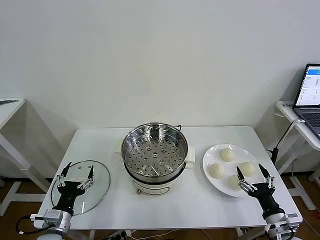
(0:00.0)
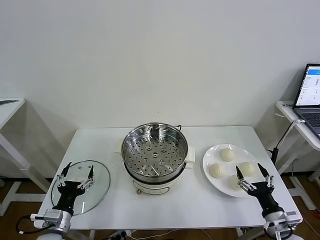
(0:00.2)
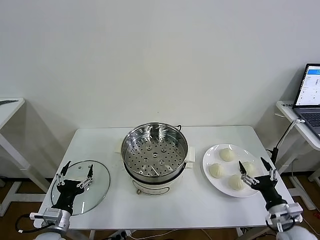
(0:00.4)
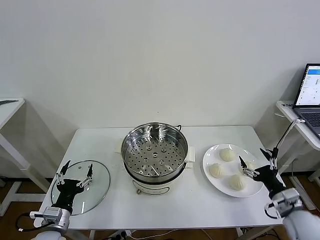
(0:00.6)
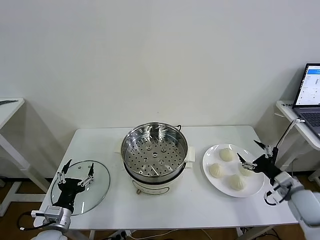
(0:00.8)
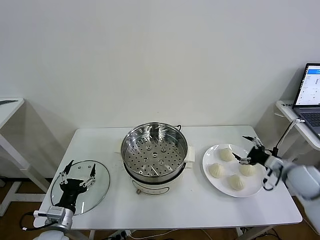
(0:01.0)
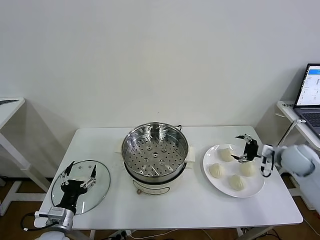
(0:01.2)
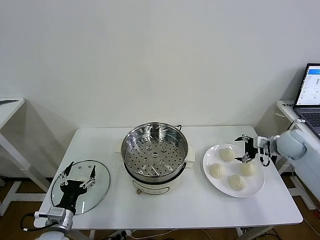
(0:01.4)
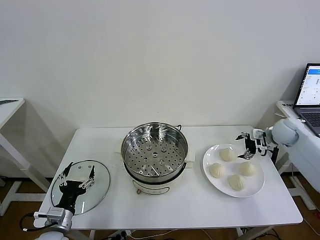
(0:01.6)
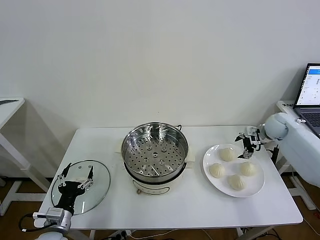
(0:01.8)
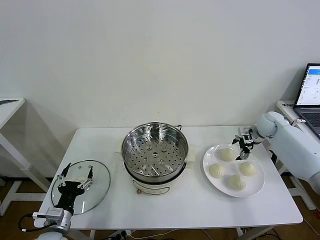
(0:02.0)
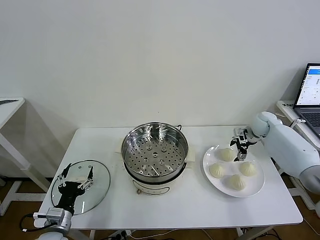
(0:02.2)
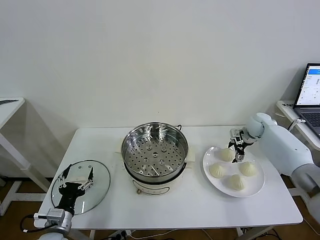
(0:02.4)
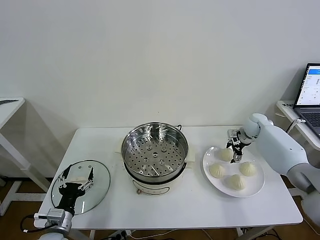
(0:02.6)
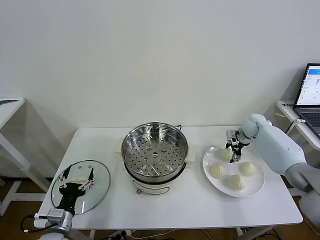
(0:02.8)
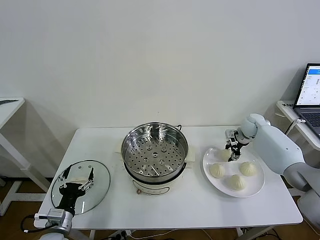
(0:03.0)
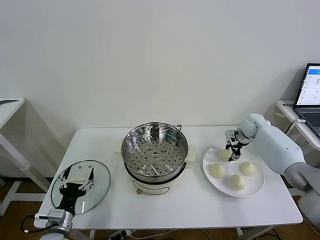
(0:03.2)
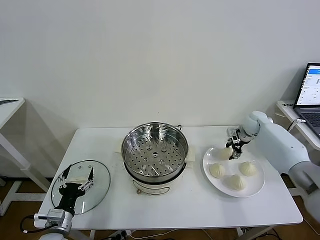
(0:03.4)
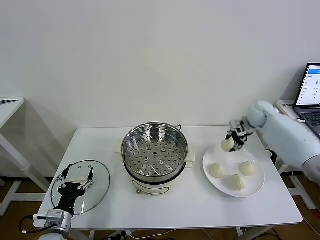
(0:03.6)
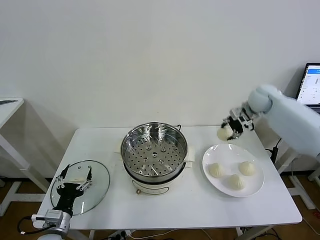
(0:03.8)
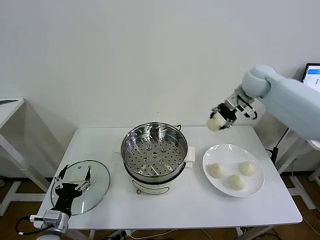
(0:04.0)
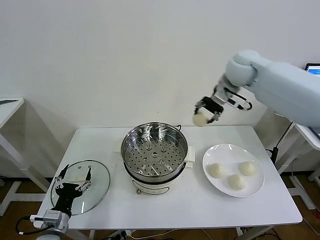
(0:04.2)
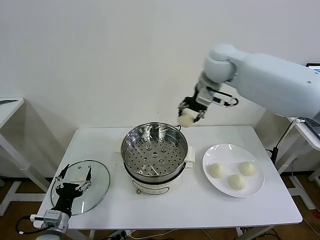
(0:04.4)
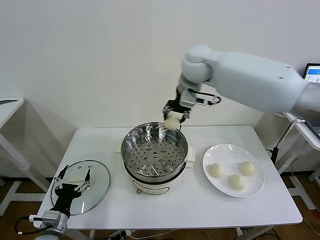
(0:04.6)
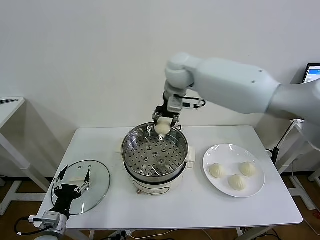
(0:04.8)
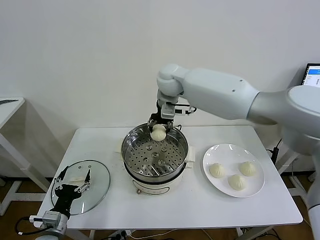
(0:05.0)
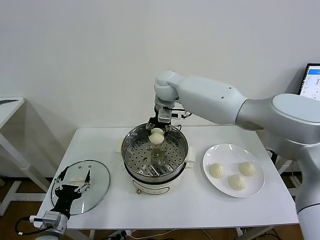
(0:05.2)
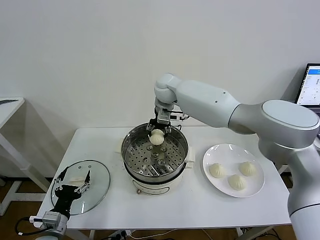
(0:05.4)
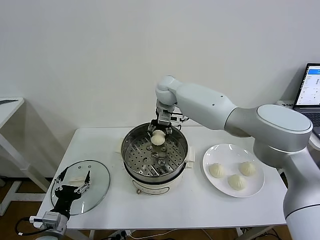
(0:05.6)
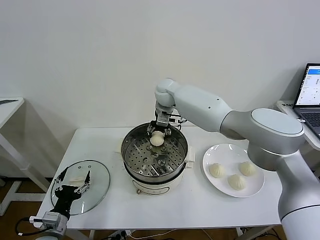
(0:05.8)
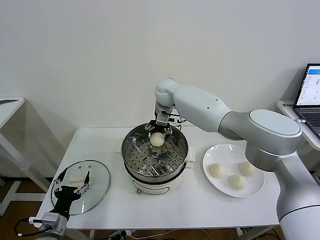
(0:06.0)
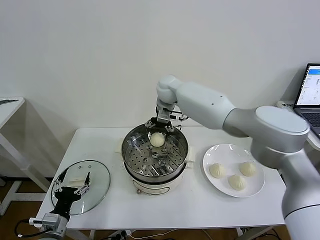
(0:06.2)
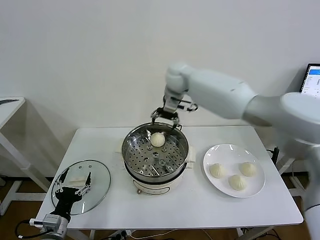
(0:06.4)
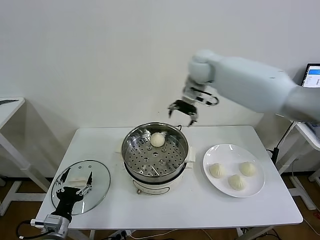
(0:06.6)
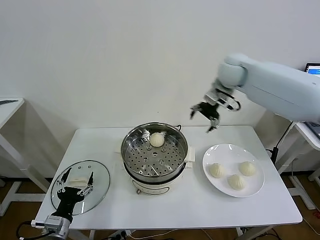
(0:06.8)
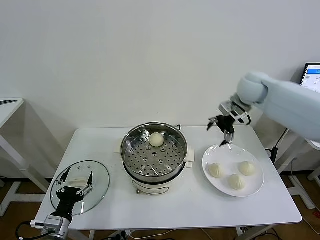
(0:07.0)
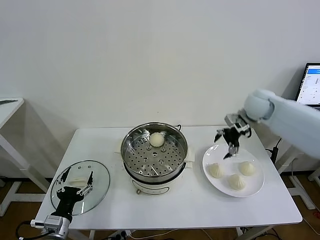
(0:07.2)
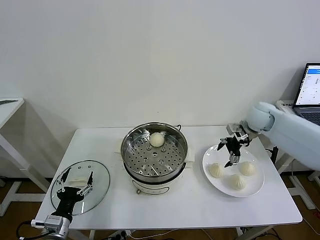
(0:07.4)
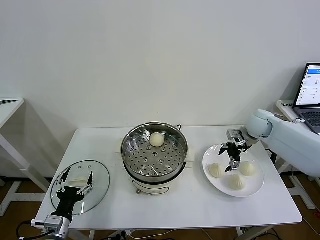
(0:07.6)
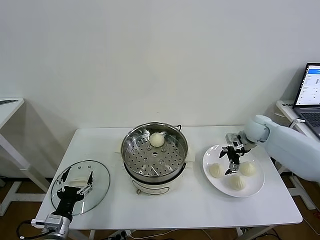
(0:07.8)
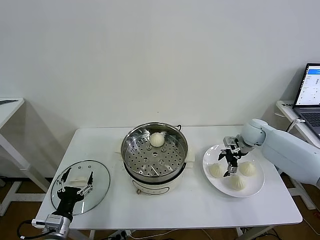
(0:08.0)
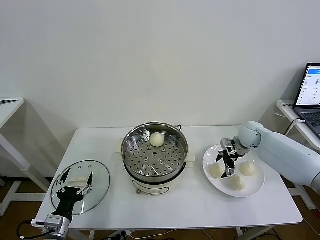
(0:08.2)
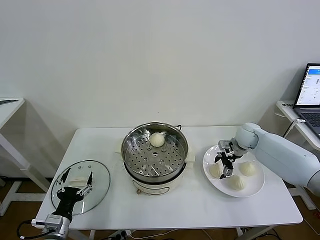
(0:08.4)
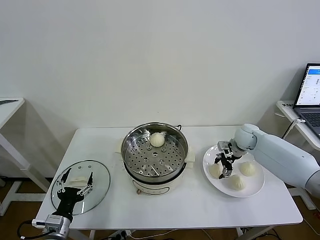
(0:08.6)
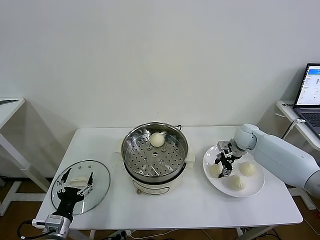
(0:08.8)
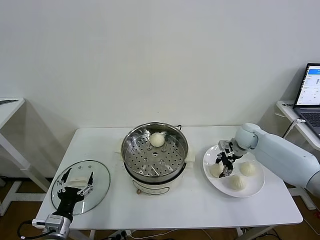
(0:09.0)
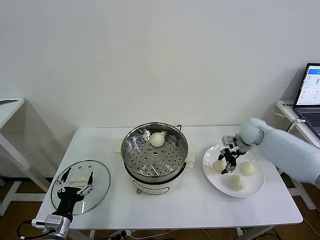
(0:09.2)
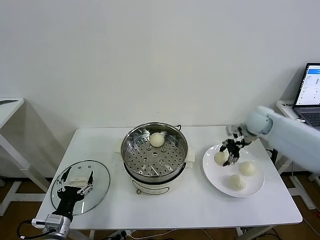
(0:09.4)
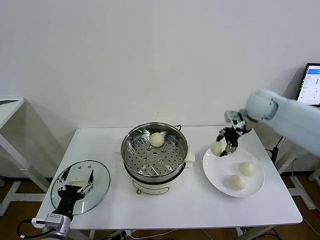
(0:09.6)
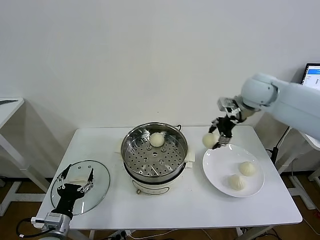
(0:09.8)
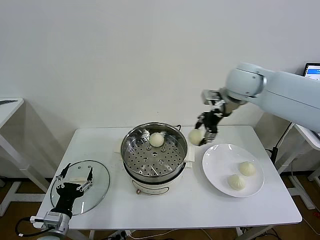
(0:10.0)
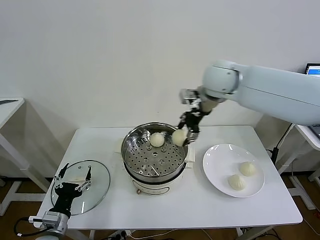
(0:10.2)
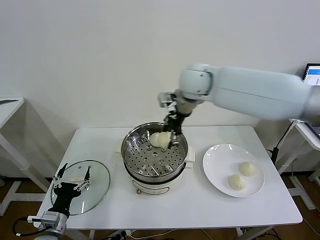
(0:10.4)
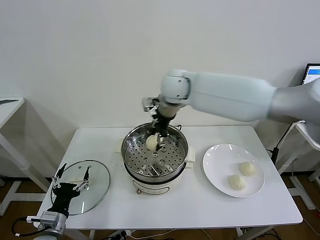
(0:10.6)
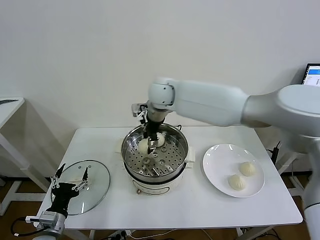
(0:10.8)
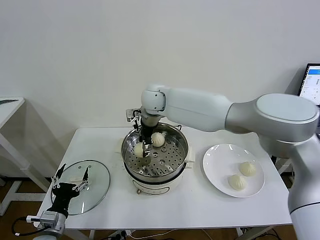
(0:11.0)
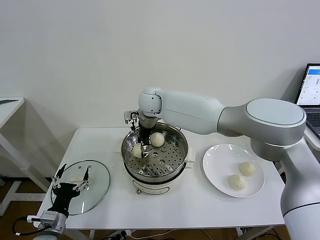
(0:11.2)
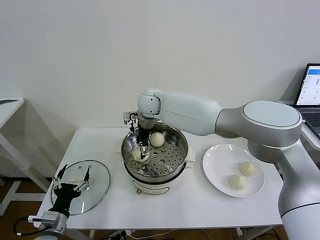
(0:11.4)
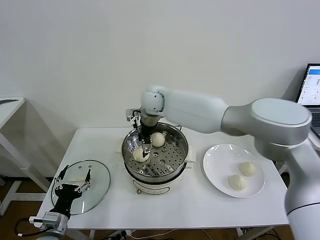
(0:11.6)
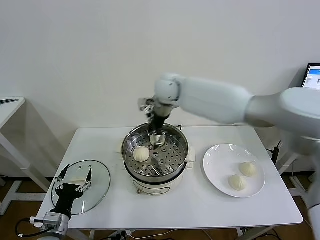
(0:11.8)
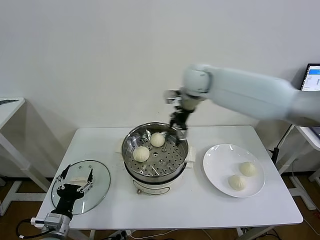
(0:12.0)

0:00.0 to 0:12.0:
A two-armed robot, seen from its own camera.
Task of the whole recording: take steamed baozi put them in steamer then cover it.
Step, 0:00.0 to 0:02.8: Grasp the baozi in the plate with right gripper.
Step, 0:03.2 to 0:06.0: Place the baozi on the steamer with right gripper.
Step, 0:06.2 to 0:08.6: Grasp the baozi in the plate with right gripper.
Step, 0:08.8 to 0:11.4: Place the baozi on the steamer with right gripper.
0:01.6 to 0:03.0: The right gripper is displaced forward, to the left and downward by approximately 10 cm, and closes its fingers.
0:03.0 to 0:04.4: The right gripper travels upward and to the left by approximately 40 cm.
0:04.4 to 0:06.0: The right gripper heads downward, to the left and forward, covering roughly 20 cm, and opens its fingers.
0:06.0 to 0:07.6: The right gripper heads to the right, covering some 35 cm.
0:07.6 to 0:09.0: The right gripper closes up.
0:09.0 to 0:10.4: The right gripper travels to the left and upward by some 35 cm.
0:10.4 to 0:12.0: The right gripper is displaced to the right by approximately 10 cm, and opens.

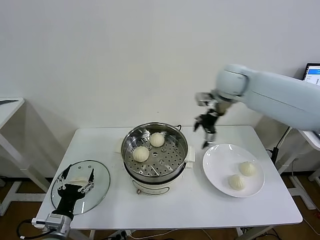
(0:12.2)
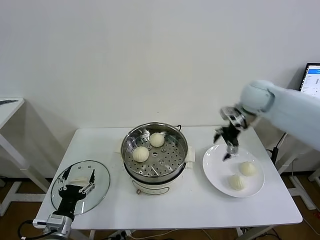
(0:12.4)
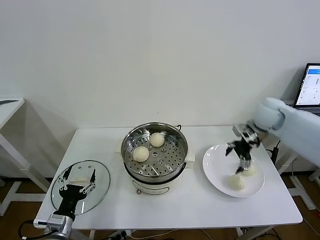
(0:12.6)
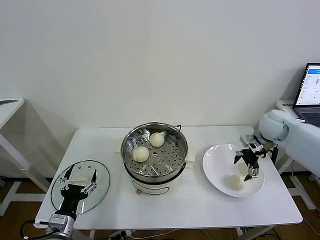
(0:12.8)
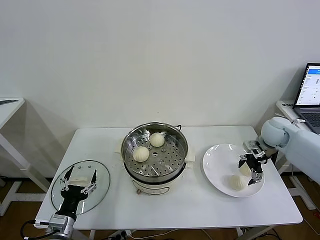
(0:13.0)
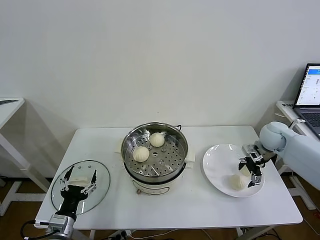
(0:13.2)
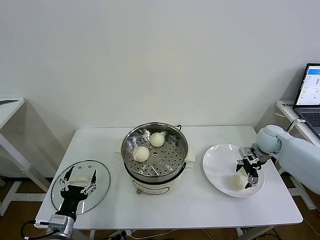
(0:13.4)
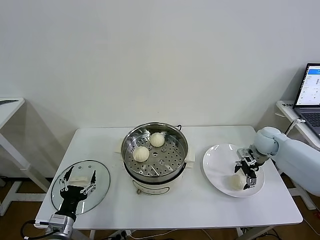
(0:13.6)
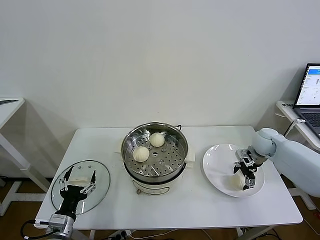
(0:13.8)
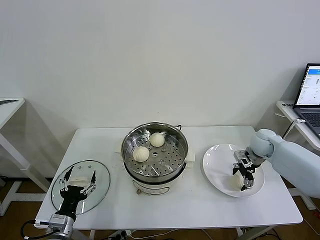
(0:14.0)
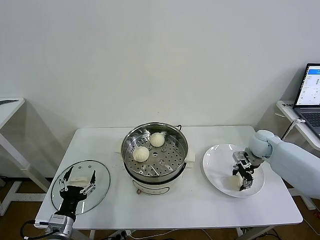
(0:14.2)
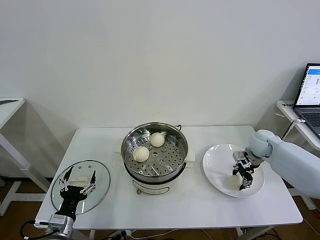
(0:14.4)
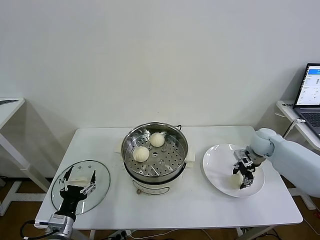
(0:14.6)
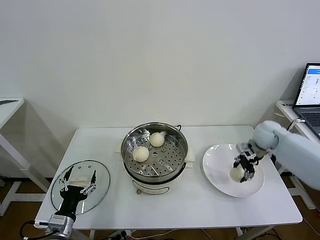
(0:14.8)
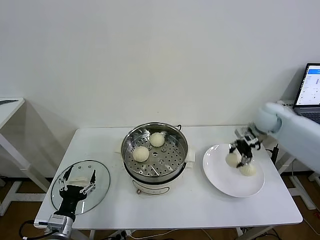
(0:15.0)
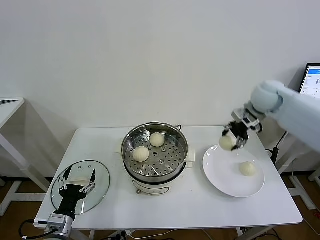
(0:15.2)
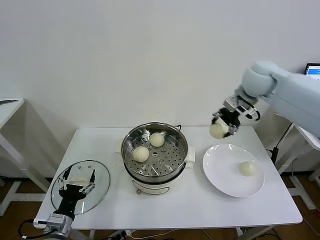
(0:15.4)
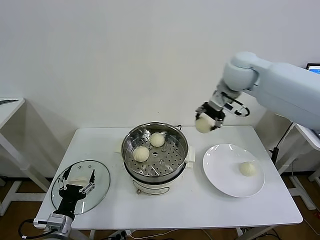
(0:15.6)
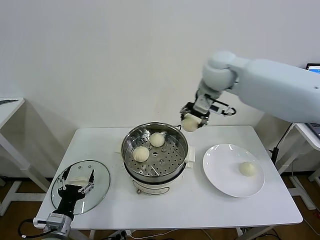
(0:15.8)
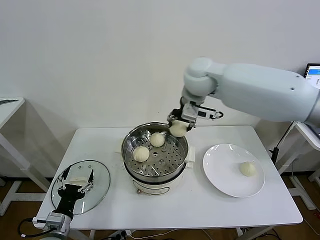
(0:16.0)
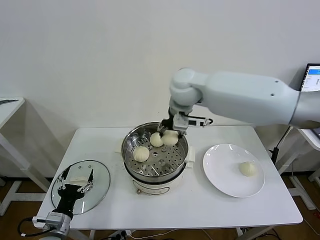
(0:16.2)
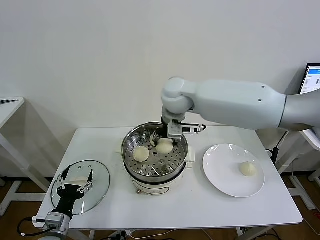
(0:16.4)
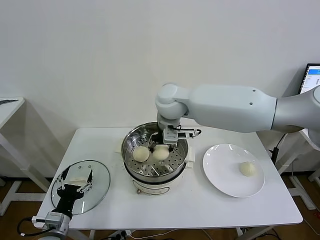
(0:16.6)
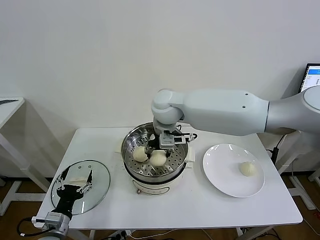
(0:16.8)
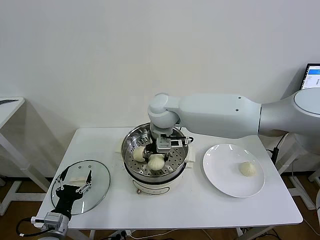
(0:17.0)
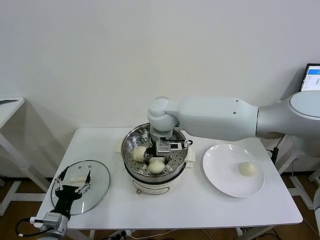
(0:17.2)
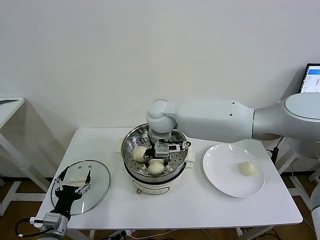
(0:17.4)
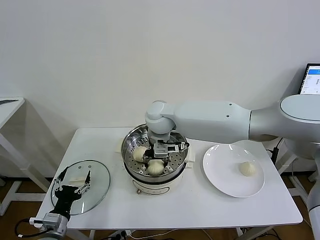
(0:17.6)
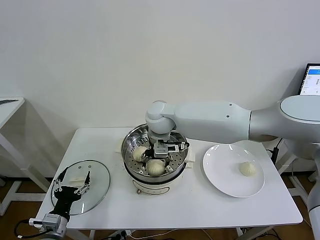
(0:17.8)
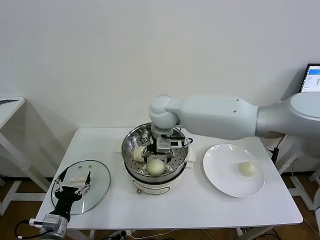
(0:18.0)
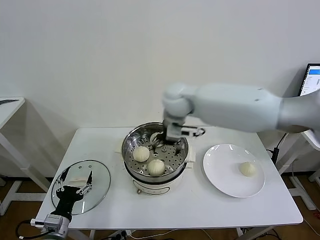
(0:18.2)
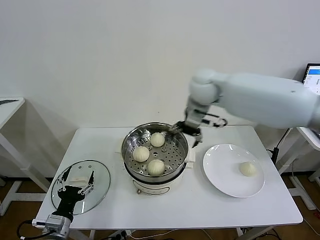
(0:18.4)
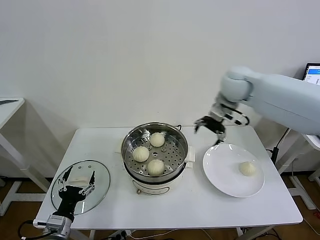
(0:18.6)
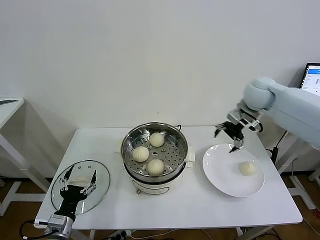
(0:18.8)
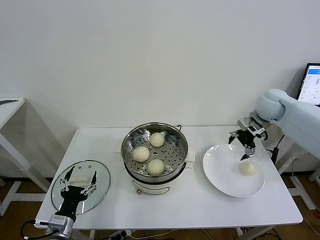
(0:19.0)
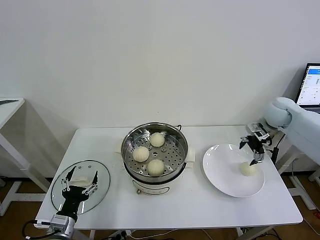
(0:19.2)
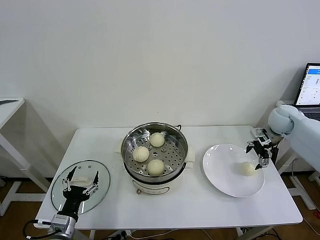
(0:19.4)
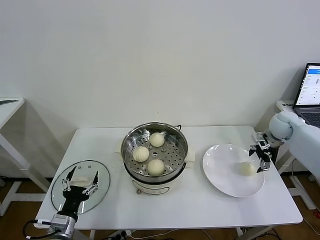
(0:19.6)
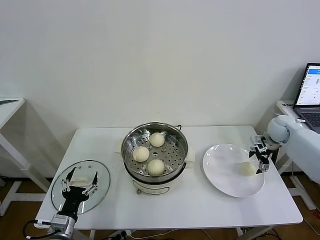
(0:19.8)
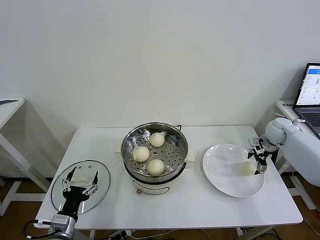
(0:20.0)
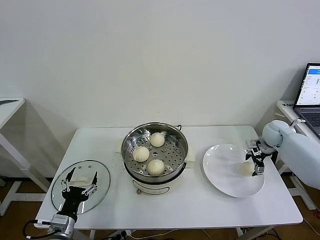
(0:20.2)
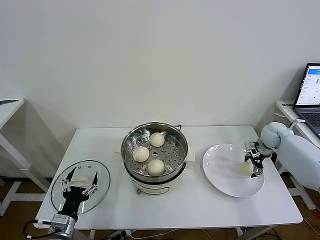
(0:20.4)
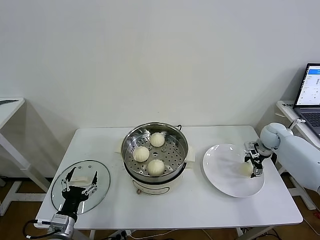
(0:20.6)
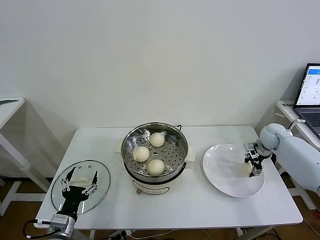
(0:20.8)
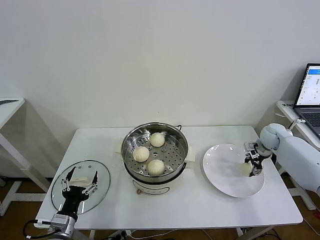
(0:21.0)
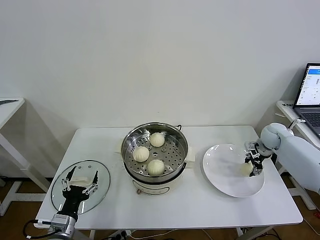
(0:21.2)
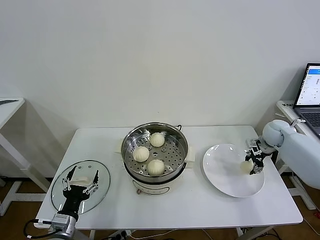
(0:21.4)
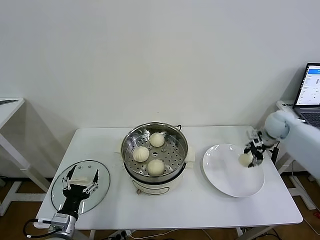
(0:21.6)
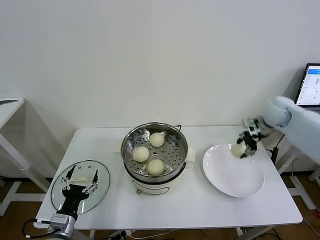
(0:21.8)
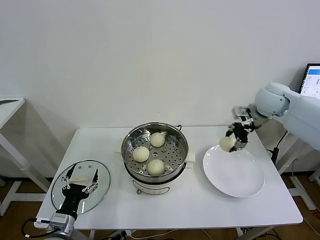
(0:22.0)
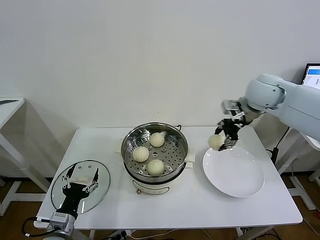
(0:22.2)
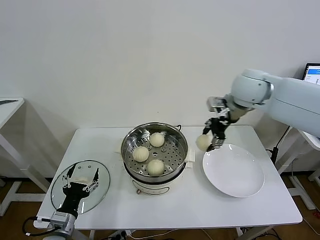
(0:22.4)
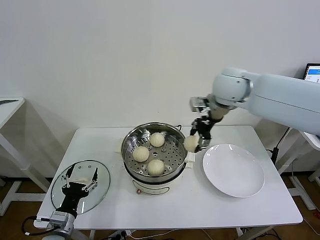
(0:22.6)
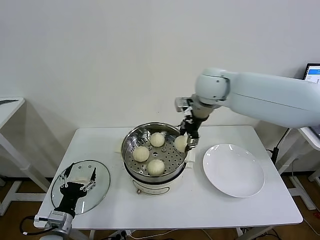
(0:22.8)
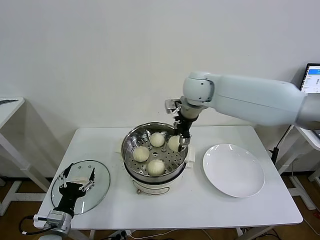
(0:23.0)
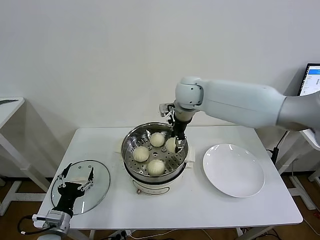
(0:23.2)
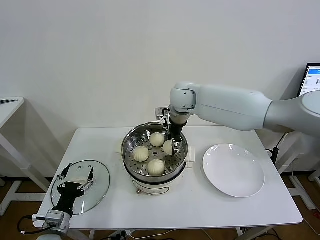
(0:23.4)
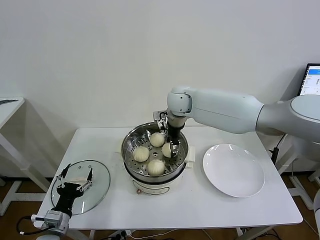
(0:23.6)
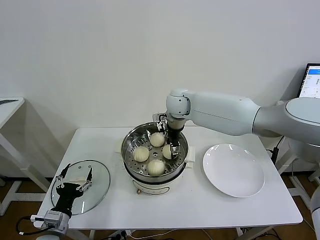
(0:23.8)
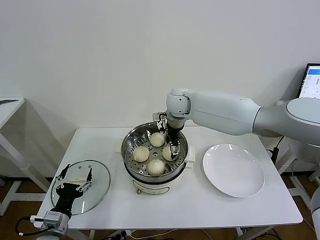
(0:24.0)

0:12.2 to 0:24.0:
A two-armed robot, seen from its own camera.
Task of the whole recording: take steamed baozi put them in steamer then cover it.
Step, 0:12.2 to 0:14.2: Grasp the baozi in the plate with right gripper.
Step, 0:14.4 to 0:17.8: Place the baozi on the steamer with right gripper.
Step, 0:18.0 to 0:20.8: Grasp the baozi in the plate with right gripper.
0:12.2 to 0:13.6: The right gripper goes about 25 cm downward and to the right.
0:13.6 to 0:15.2: The right gripper is displaced upward by some 20 cm, and closes up.
0:15.2 to 0:16.6: The right gripper shifts roughly 30 cm to the left.
0:16.6 to 0:18.2: The right gripper opens.
0:18.2 to 0:19.6: The right gripper heads to the right, covering about 40 cm.
0:19.6 to 0:21.0: The right gripper shifts some 5 cm downward, and closes.
0:21.0 to 0:22.6: The right gripper shifts approximately 35 cm to the left and upward.
0:22.6 to 0:24.0: The right gripper heads to the left, downward and forward, covering about 15 cm, and opens up.
